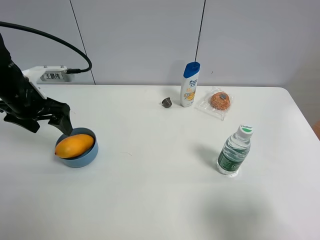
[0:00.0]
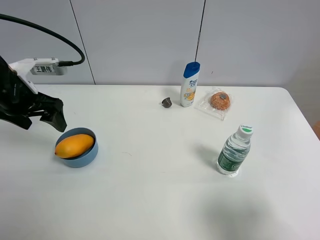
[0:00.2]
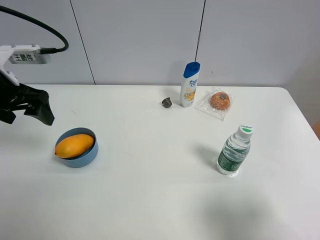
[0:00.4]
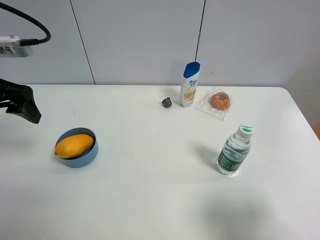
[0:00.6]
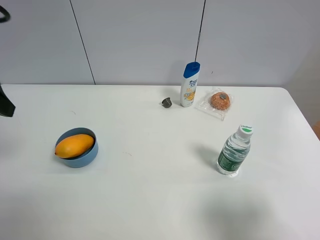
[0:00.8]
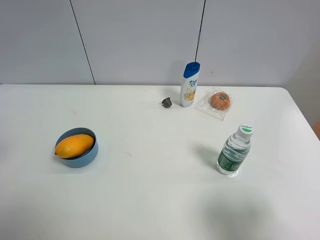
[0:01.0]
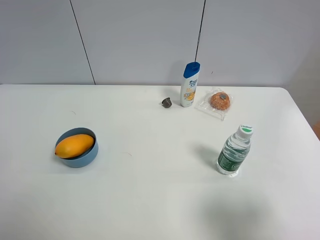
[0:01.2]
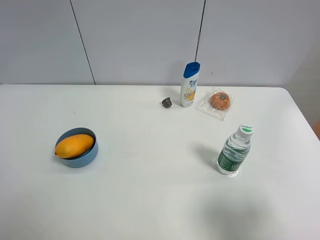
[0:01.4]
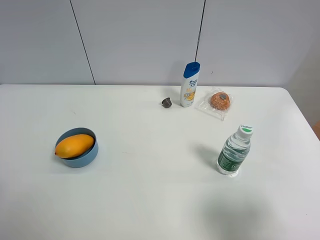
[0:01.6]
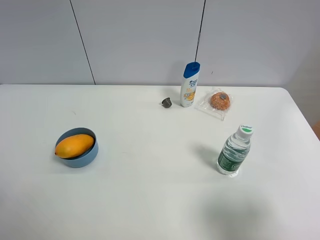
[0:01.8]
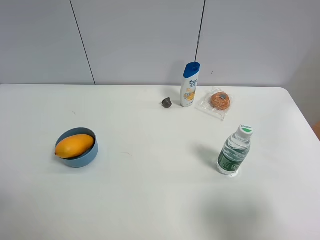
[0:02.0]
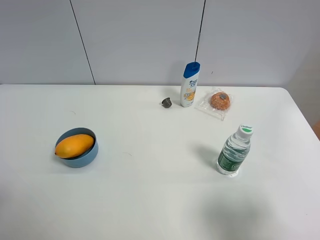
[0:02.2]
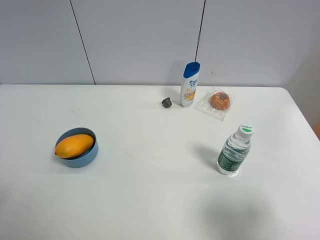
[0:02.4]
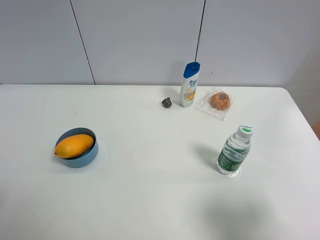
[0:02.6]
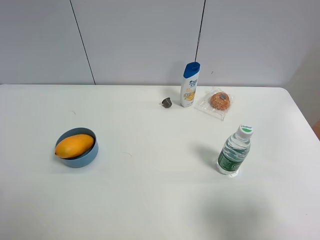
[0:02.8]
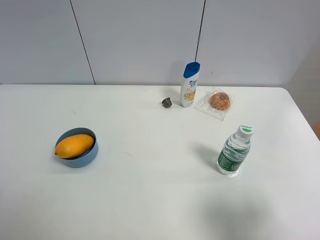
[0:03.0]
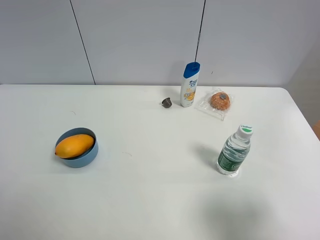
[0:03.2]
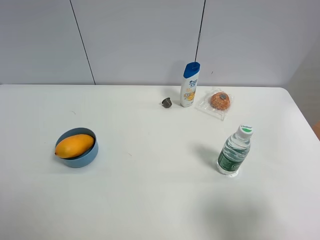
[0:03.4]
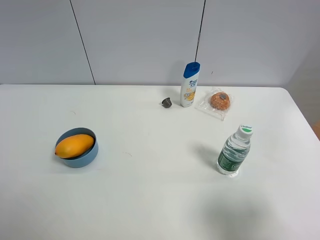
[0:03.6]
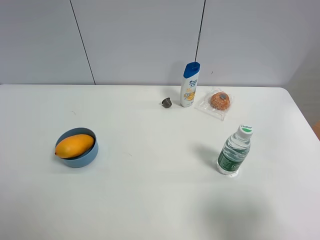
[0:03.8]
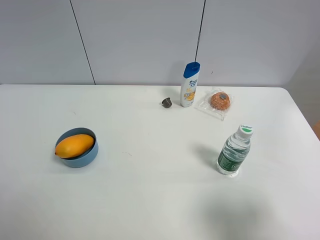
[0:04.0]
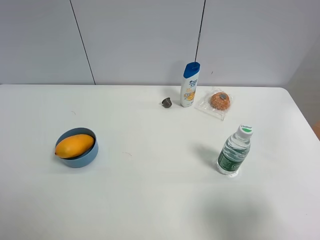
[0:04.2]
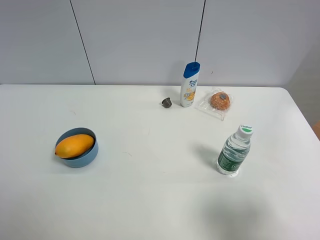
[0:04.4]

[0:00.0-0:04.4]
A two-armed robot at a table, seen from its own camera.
Task of the whole recording: the gripper move the object.
0:00.0 to 0:01.4: The left gripper travels backward and upward by some 25 cm.

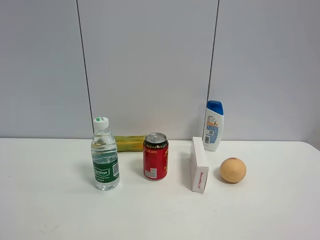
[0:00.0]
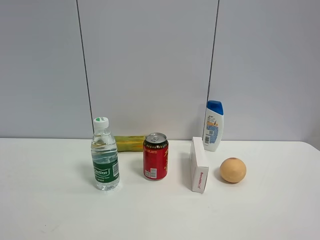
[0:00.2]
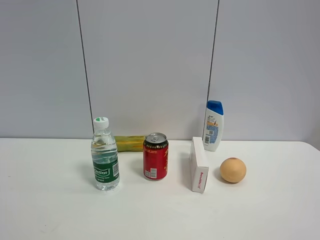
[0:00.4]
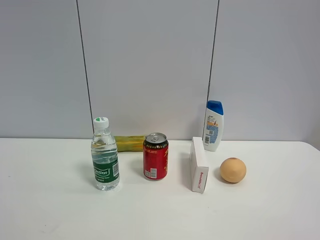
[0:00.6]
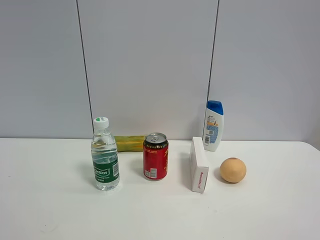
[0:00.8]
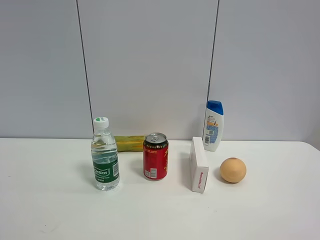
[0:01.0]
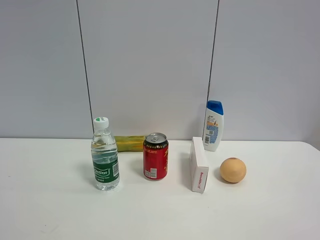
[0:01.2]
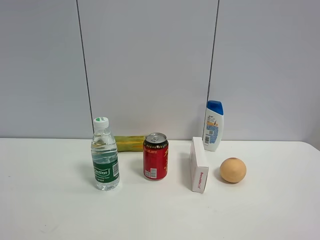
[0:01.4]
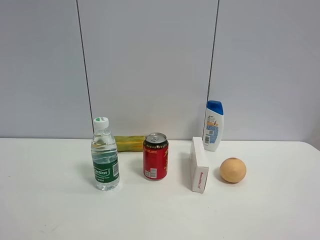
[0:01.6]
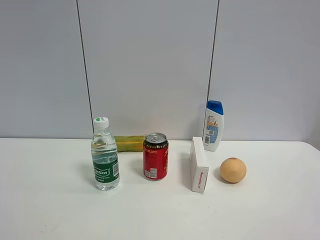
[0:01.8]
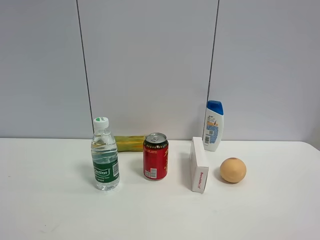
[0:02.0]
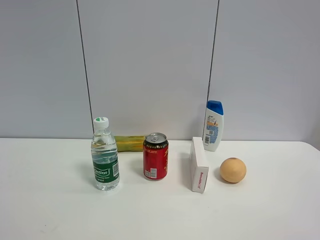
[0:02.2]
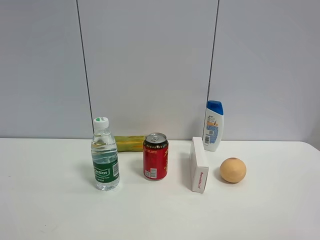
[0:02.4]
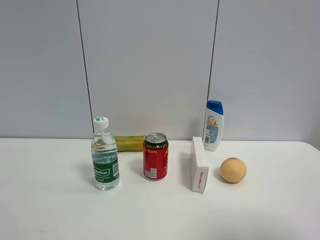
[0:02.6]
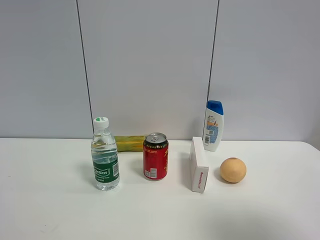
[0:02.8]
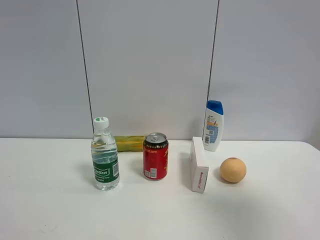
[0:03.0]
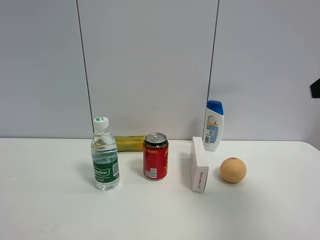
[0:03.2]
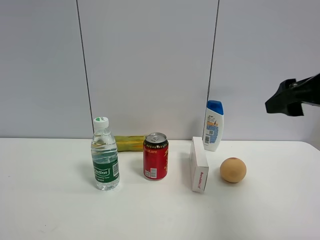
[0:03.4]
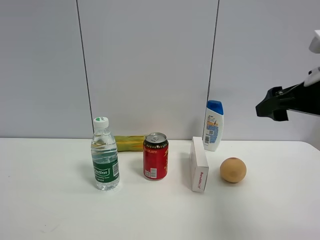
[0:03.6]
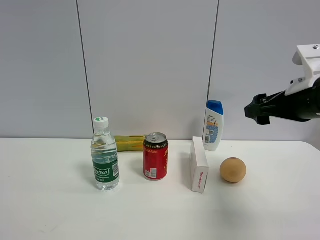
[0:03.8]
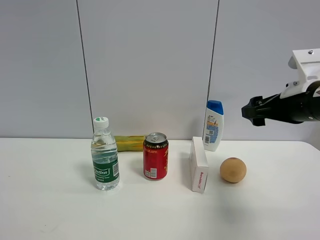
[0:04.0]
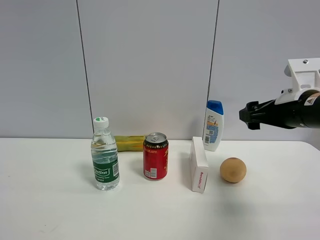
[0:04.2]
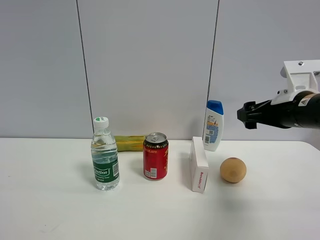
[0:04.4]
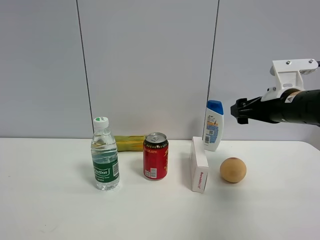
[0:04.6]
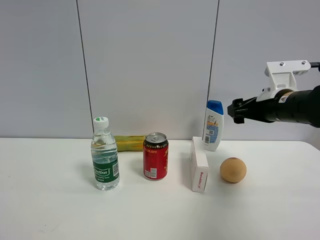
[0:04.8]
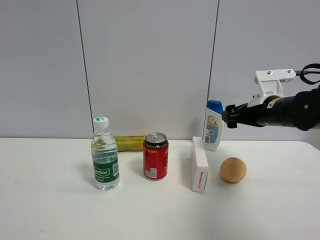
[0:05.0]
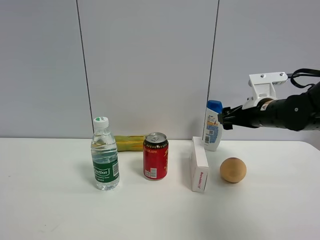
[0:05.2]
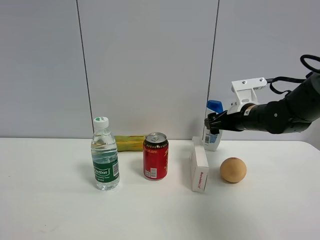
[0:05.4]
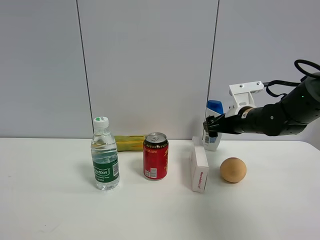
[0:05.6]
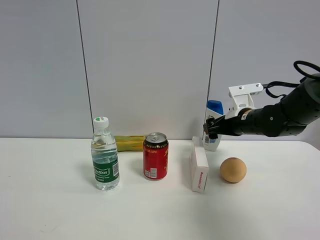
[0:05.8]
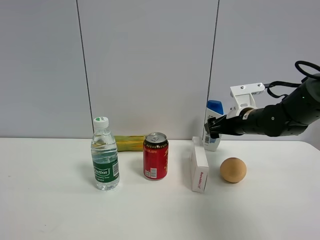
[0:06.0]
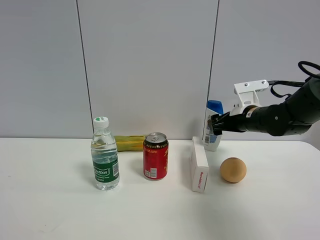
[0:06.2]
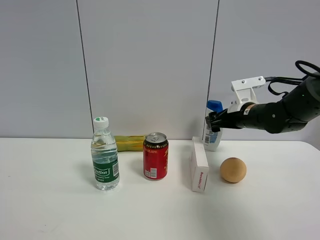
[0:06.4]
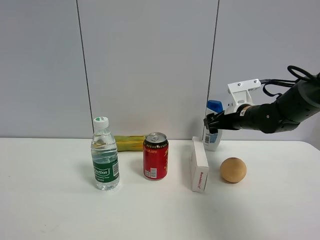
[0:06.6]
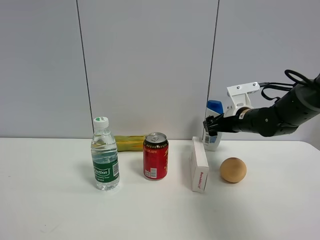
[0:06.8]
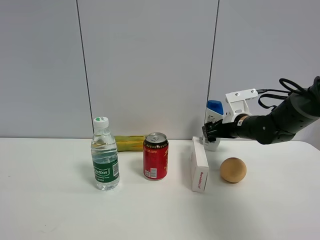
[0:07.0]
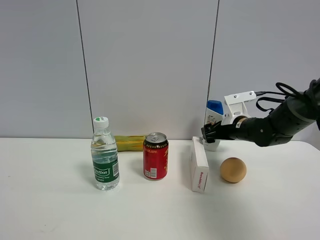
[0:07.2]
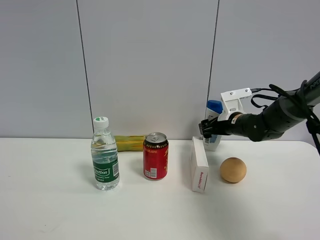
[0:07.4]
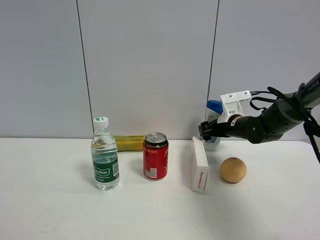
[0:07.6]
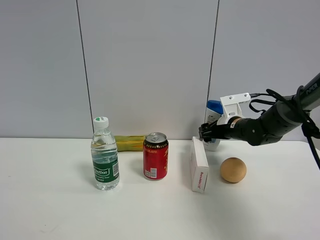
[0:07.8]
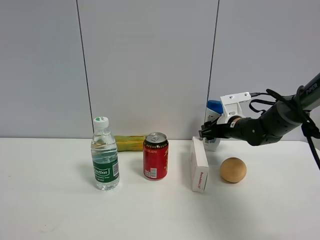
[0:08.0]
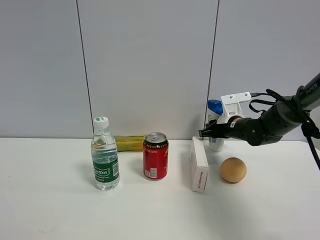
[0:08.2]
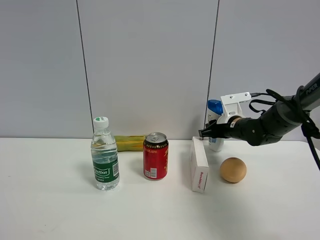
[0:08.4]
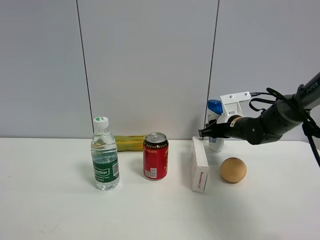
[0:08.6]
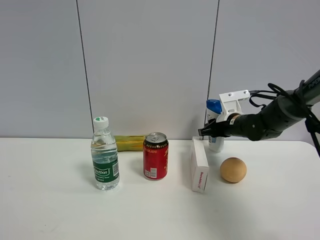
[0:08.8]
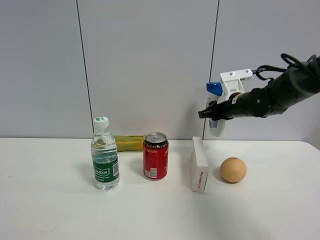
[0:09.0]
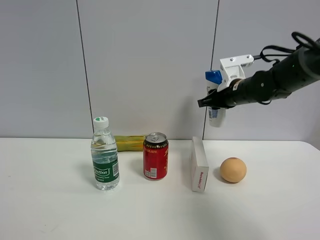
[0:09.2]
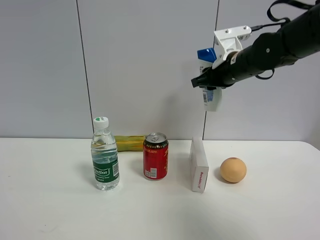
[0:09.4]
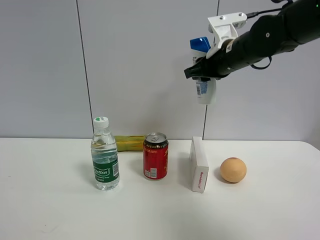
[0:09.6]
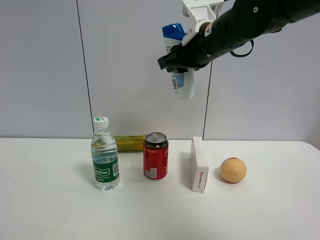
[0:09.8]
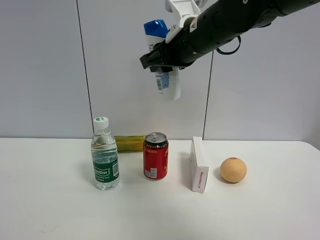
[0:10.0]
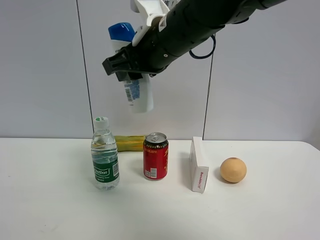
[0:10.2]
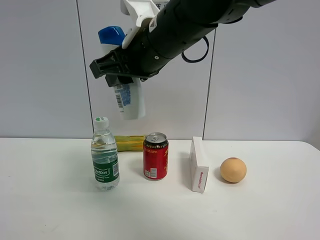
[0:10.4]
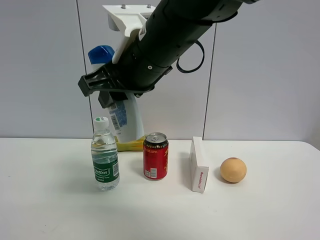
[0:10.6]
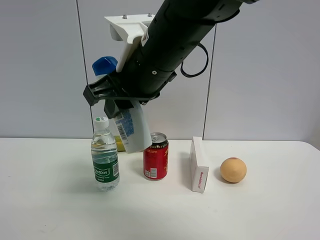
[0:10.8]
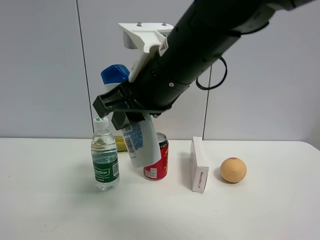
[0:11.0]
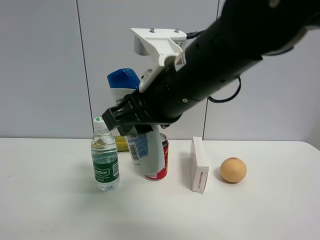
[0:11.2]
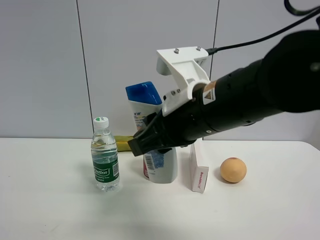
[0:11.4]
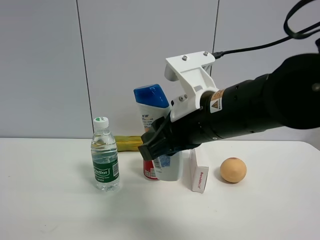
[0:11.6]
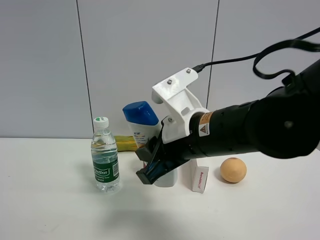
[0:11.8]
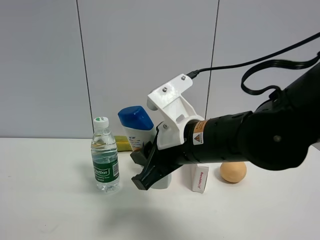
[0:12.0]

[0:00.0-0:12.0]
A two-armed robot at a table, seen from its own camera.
Task of the whole recording: the gripper move the object.
Step, 0:00.0 to 0:08.0: Grasp the shampoo with the right gripper.
0:00.0 to 0:01.6: The two grippers keep their place.
0:01.6 to 0:03.0: The right gripper moves forward, roughly 15 cm.
0:03.0 to 0:04.4: The right gripper heads forward and downward, covering roughly 20 cm.
0:04.4 to 0:06.0: The right gripper is displaced forward and downward by roughly 10 cm.
0:06.0 to 0:07.6: The right gripper heads forward, covering about 5 cm.
0:07.6 to 0:09.0: The right gripper is displaced upward by approximately 5 cm, and closes up.
0:09.0 to 0:10.4: The right gripper moves to the left, backward and upward, approximately 30 cm.
0:10.4 to 0:12.0: The right gripper shifts roughly 15 cm downward and to the right.

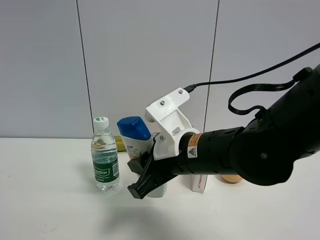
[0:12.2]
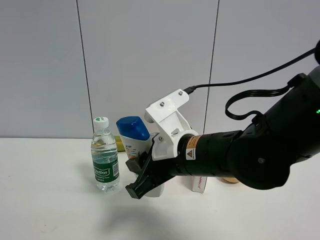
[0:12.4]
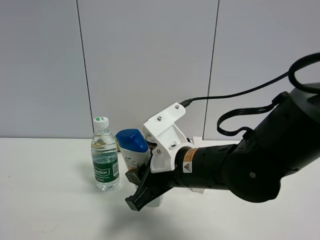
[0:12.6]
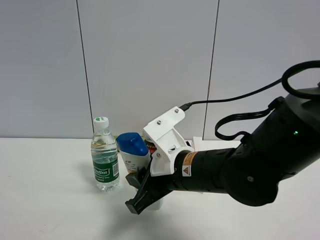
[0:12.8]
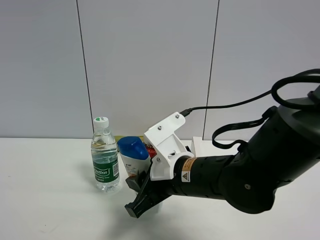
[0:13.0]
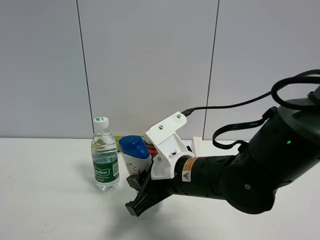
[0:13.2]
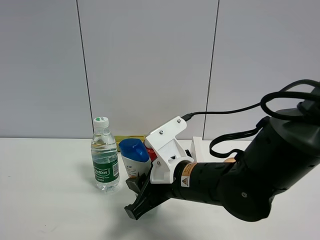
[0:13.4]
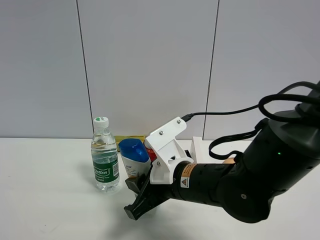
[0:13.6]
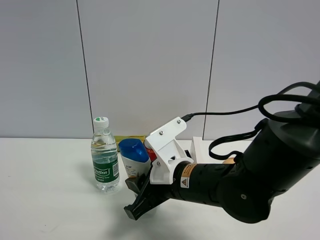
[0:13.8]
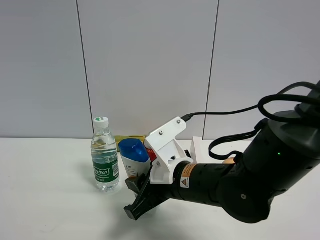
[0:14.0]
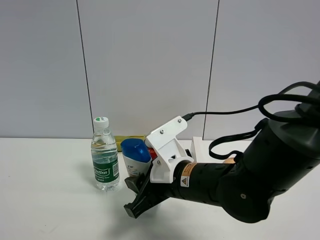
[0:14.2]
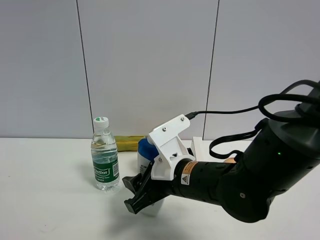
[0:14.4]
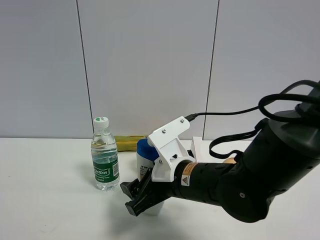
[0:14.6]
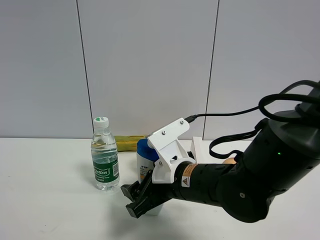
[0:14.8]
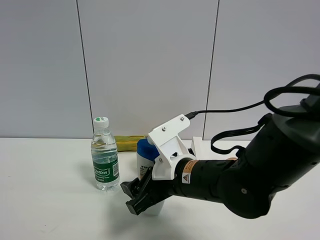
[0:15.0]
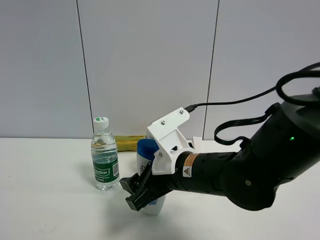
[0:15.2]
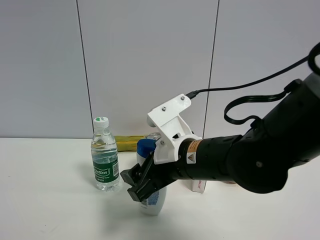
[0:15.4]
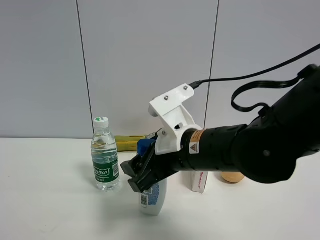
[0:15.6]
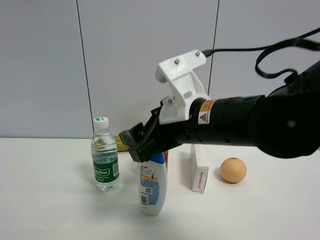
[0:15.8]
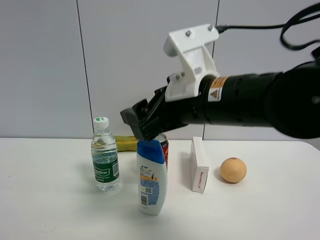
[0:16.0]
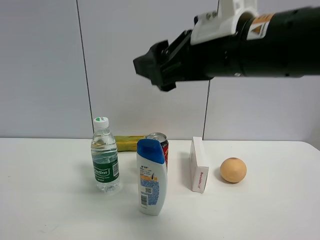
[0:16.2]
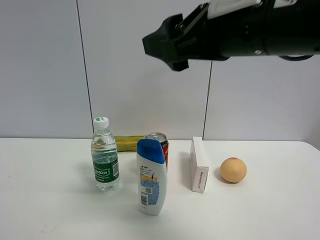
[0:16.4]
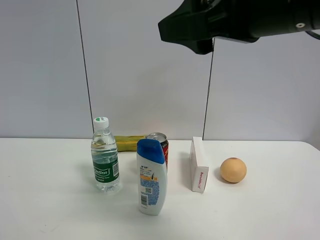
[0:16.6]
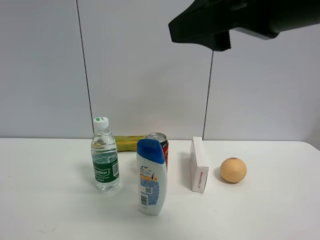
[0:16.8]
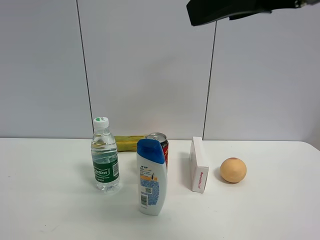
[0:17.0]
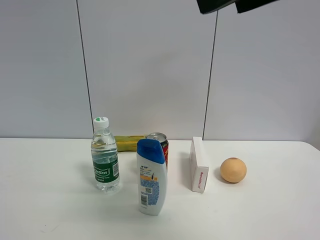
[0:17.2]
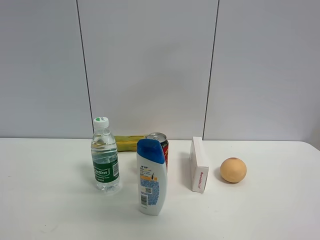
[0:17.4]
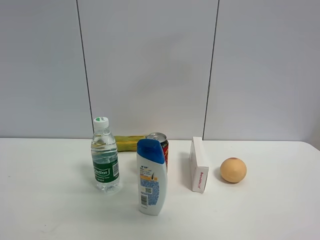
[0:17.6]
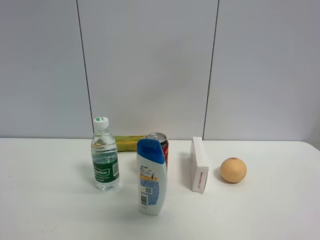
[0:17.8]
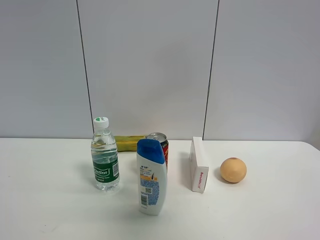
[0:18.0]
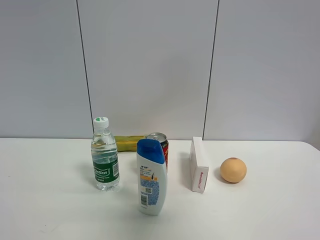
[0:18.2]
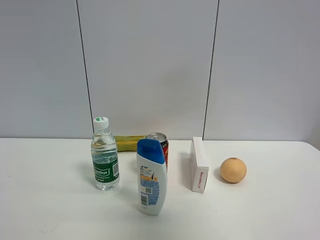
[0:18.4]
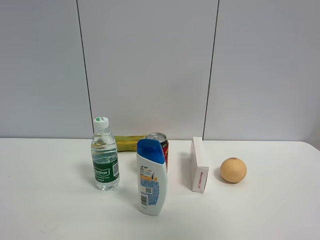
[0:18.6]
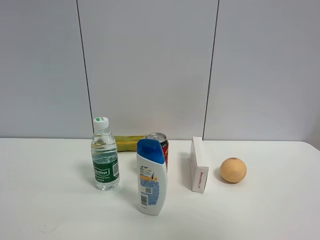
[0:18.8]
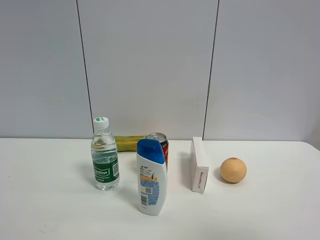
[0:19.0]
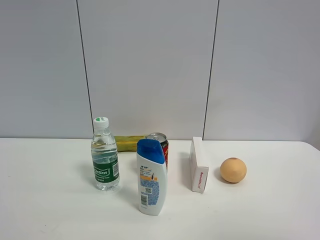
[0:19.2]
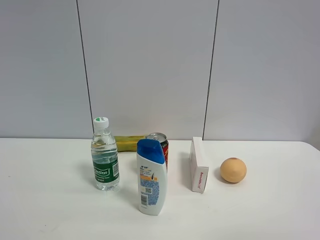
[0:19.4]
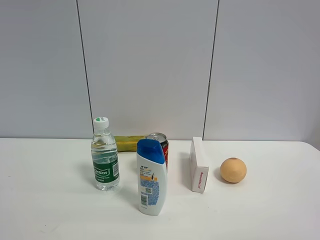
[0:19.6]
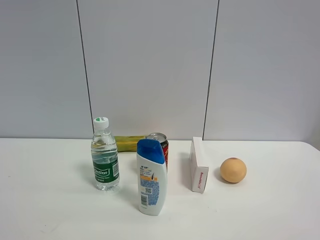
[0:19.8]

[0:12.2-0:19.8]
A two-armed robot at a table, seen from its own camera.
Task of the whole recording: the gripper move the object.
Step, 0:12.2 to 0:14.4: Place the shampoo on the table with the right gripper.
0:12.2 to 0:13.8: The right gripper goes some 5 cm downward.
0:13.8 to 0:15.2: The right gripper opens up.
0:15.2 to 0:16.8: The right gripper goes about 25 cm upward.
0:16.8 to 0:18.2: The right gripper shifts roughly 10 cm upward, backward and to the right.
0:18.2 to 0:19.8: The right gripper shifts about 20 cm downward, backward and to the right.
